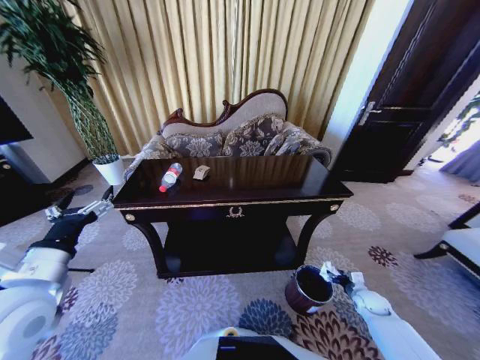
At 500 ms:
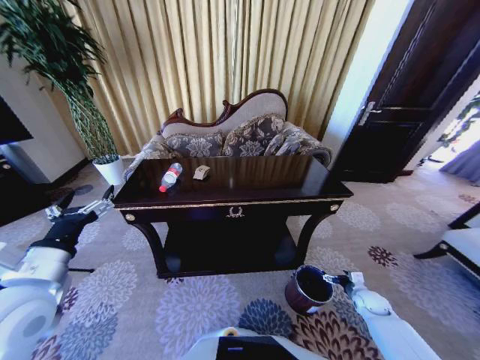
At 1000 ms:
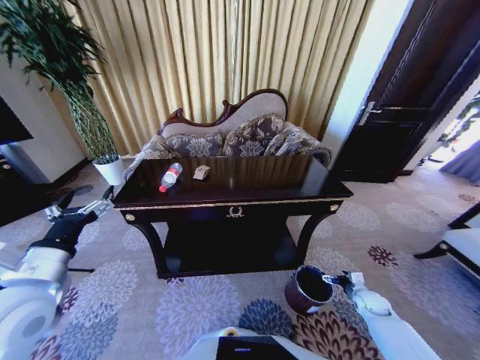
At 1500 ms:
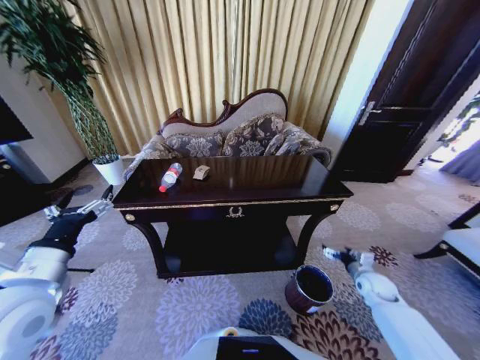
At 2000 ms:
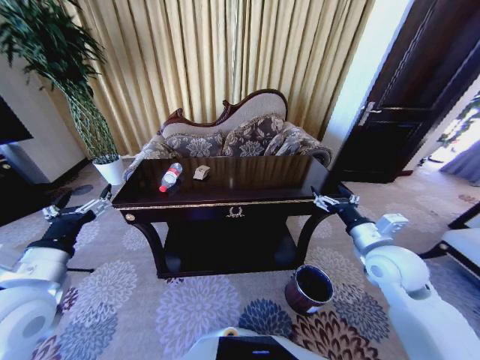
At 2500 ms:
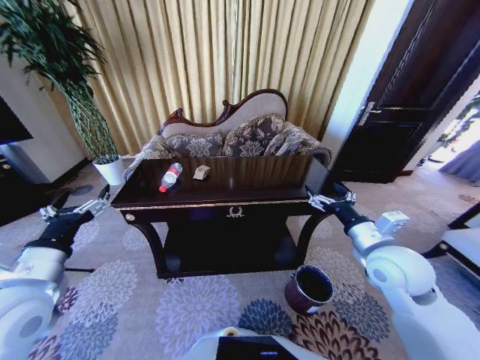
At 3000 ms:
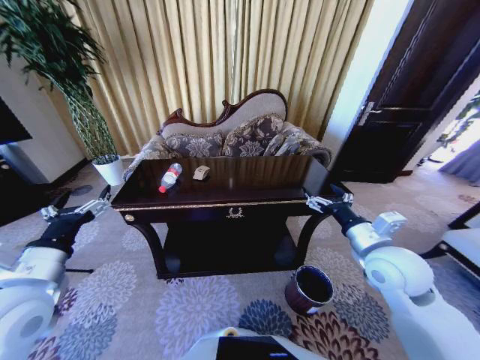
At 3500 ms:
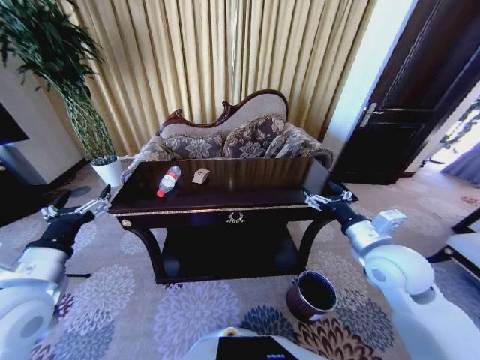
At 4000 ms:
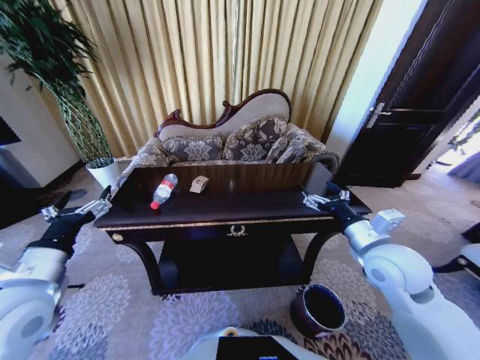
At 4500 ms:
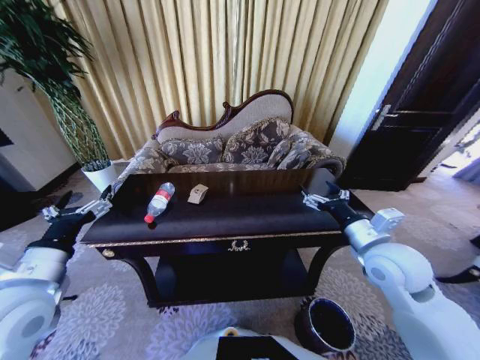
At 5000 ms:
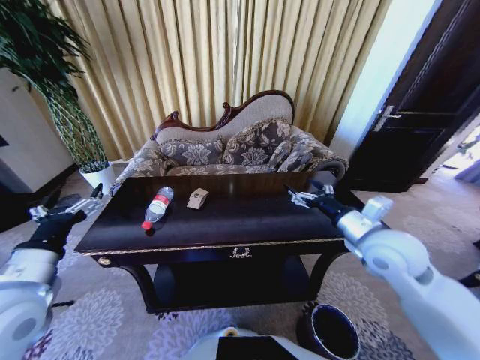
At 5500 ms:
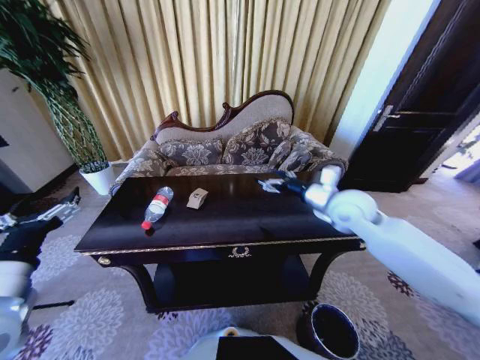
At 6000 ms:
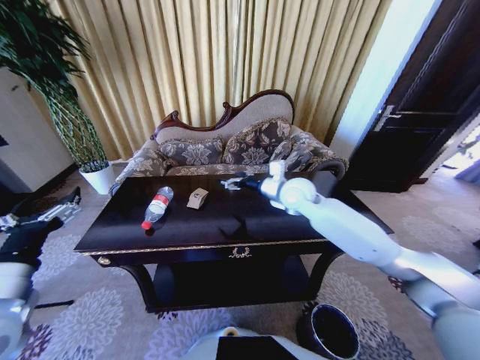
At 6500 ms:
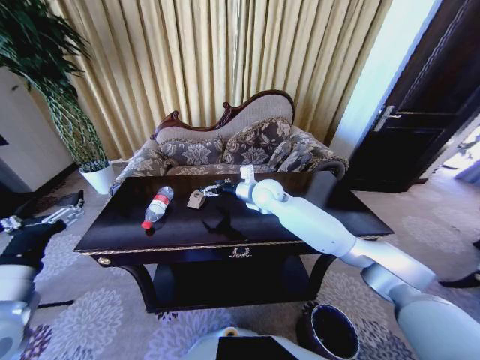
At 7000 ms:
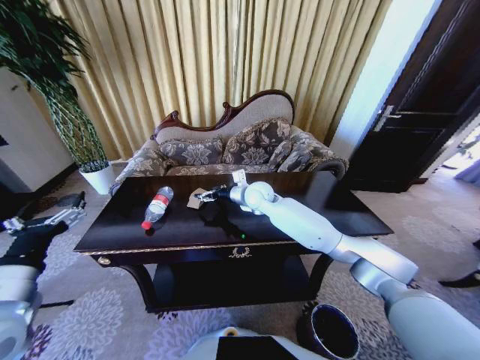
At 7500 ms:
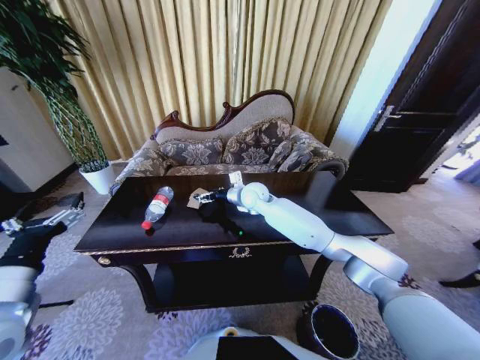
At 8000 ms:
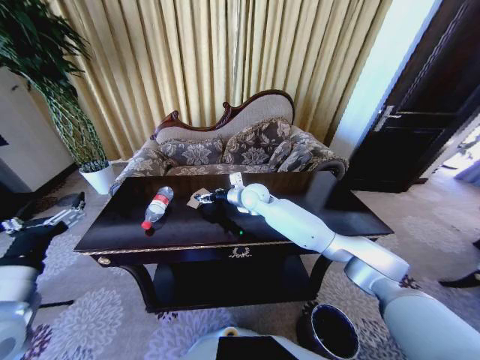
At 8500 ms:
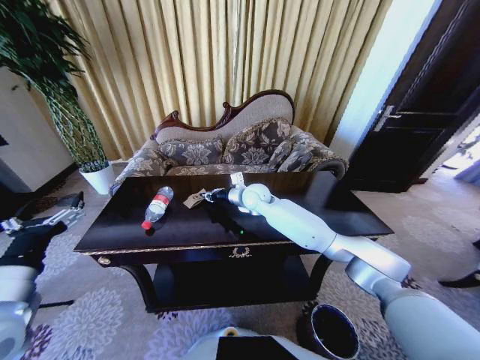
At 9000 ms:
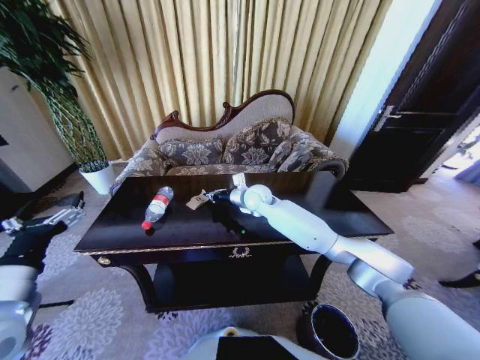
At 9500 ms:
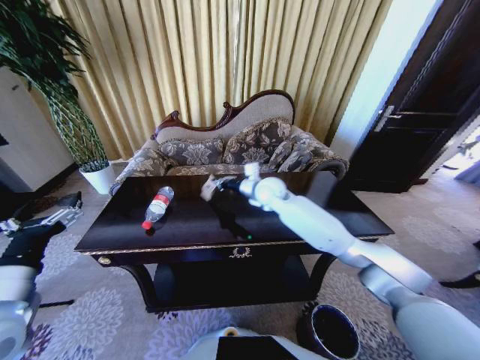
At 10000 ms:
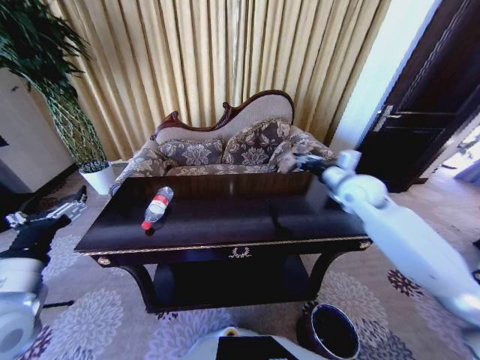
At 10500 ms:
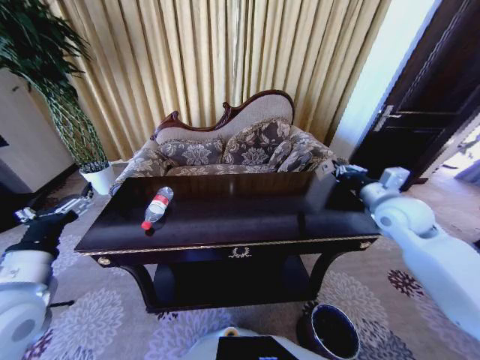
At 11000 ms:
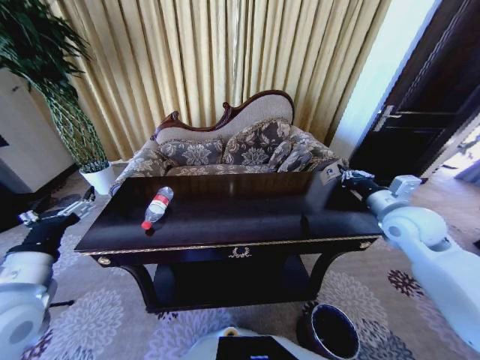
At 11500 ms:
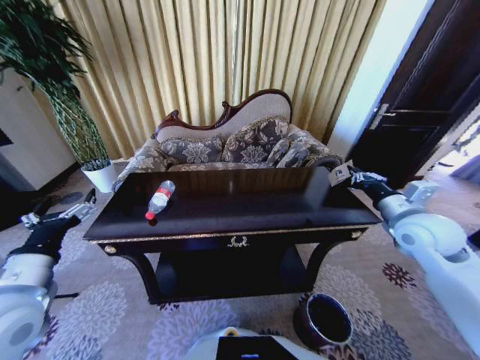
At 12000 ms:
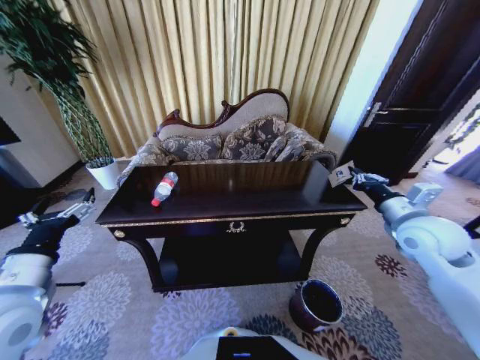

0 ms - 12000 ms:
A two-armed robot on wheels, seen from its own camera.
Task of the whole recording: Move to the front of the table and place the trash on the table into the trash bin.
0 ms - 2000 ms: The right gripper goes roughly 30 cm upward and to the left, and opens up.
2000 ms - 4000 ms: The right gripper ends up roughly 5 cm from where it was.
4000 ms - 6000 ms: The right gripper is displaced forward and to the left by about 25 cm.
6000 ms - 8000 ms: The right gripper shifts some 15 cm to the left, downward and forward.
8000 ms - 10000 ms: The right gripper heads to the right, covering roughly 25 cm, and closes its fingers.
10000 ms - 12000 ms: The right gripper shifts approximately 15 cm backward and to the right.

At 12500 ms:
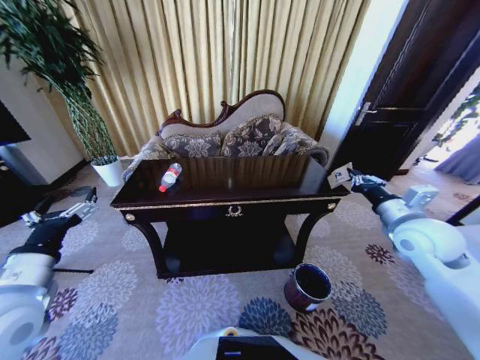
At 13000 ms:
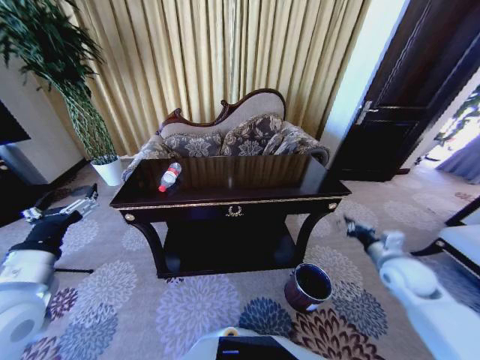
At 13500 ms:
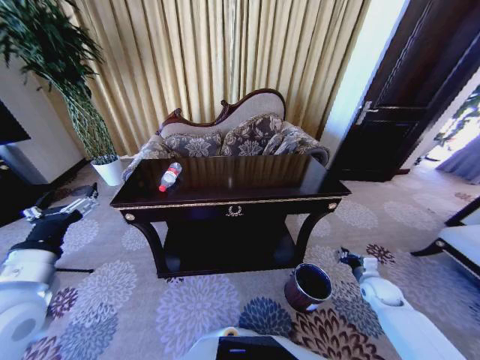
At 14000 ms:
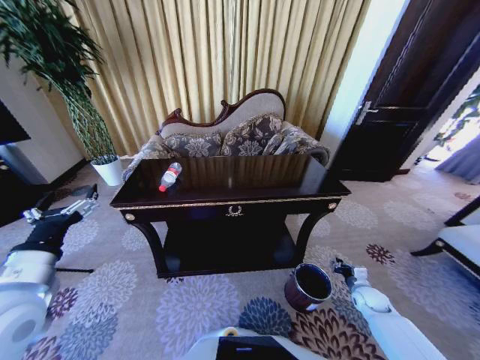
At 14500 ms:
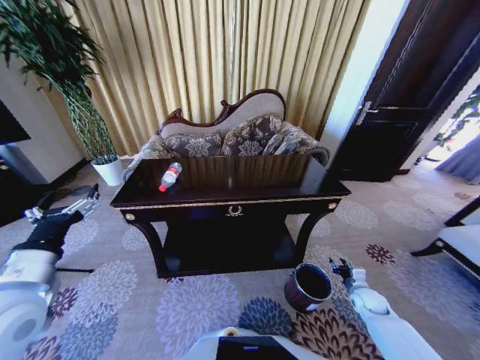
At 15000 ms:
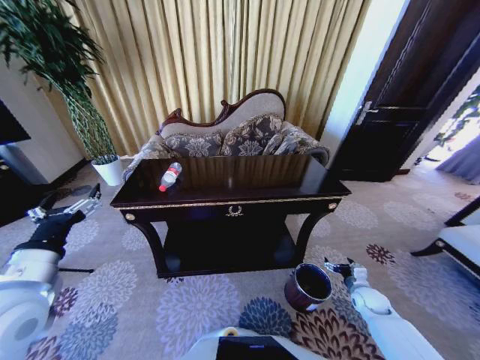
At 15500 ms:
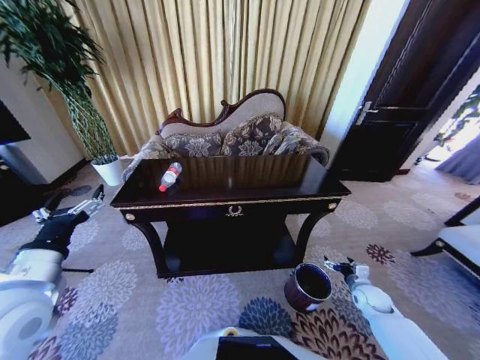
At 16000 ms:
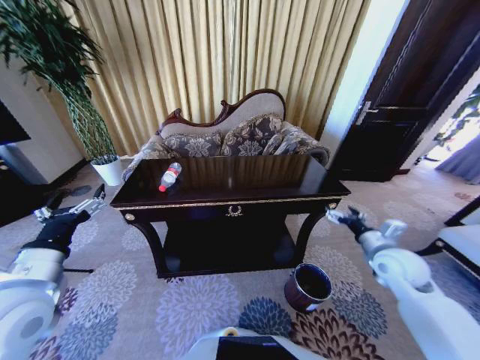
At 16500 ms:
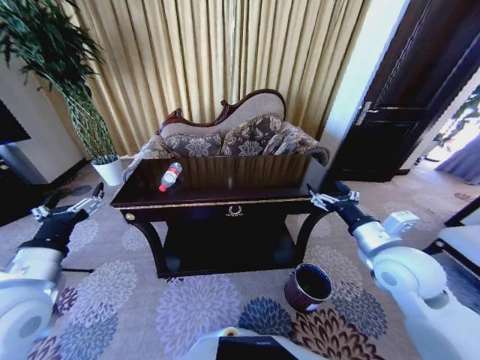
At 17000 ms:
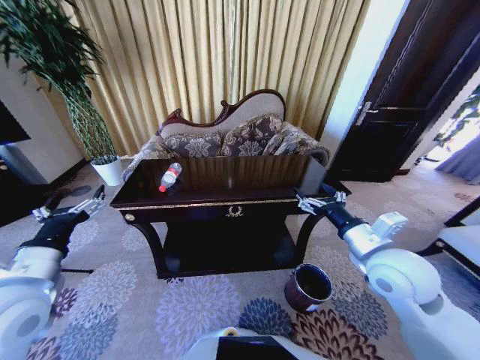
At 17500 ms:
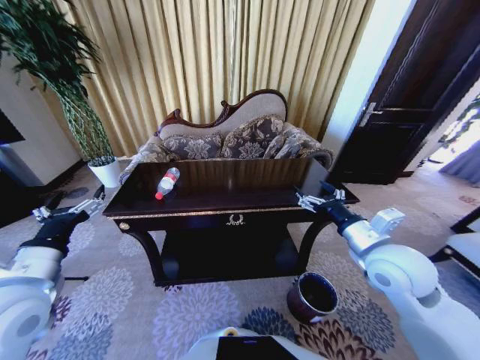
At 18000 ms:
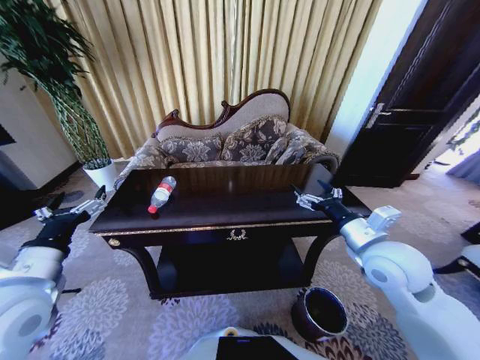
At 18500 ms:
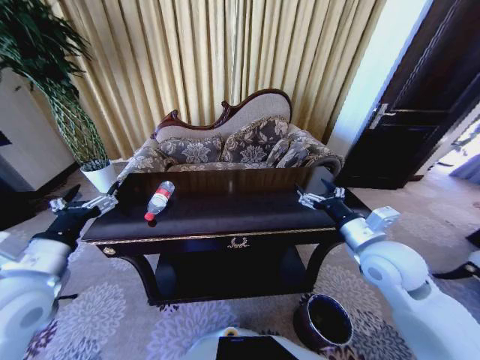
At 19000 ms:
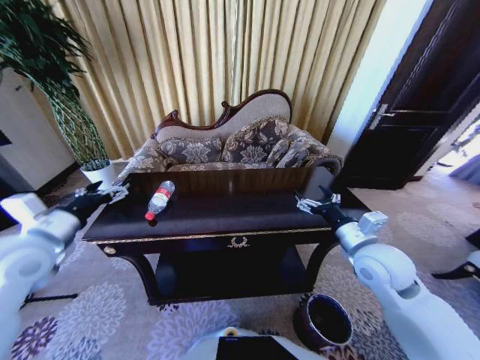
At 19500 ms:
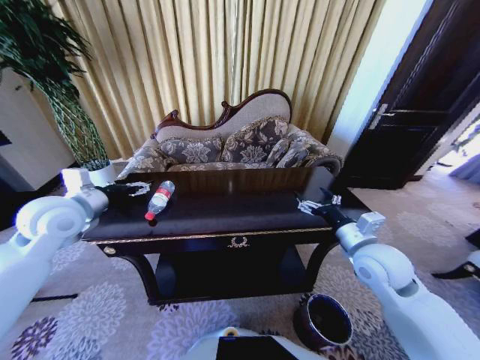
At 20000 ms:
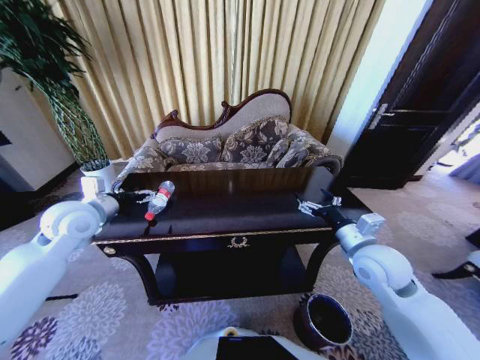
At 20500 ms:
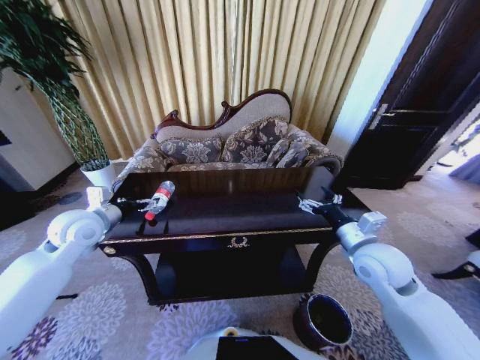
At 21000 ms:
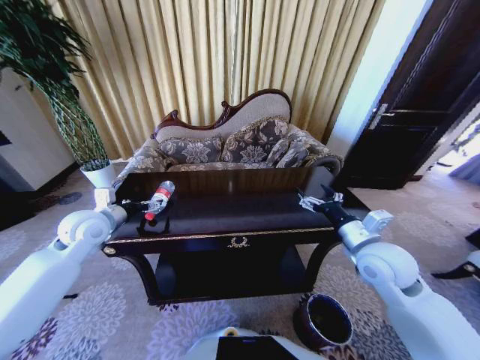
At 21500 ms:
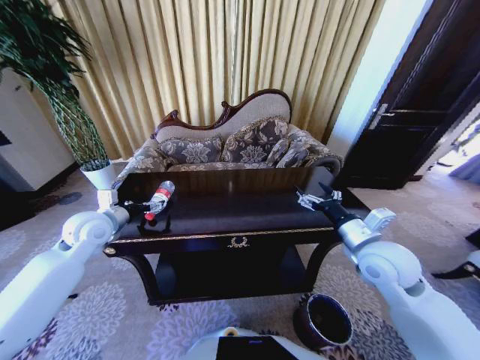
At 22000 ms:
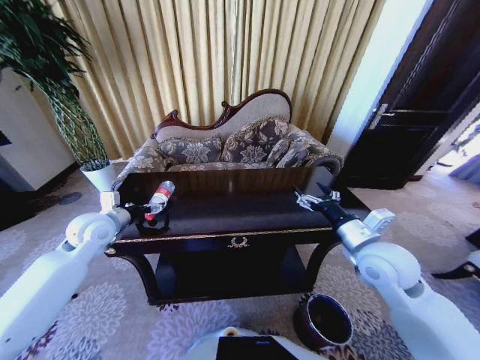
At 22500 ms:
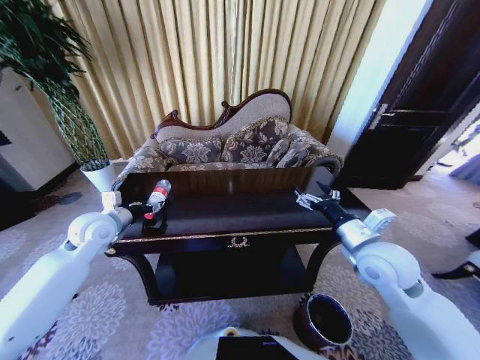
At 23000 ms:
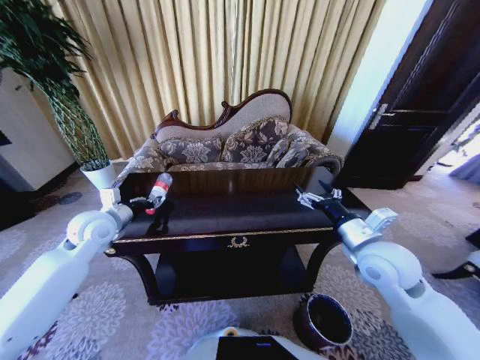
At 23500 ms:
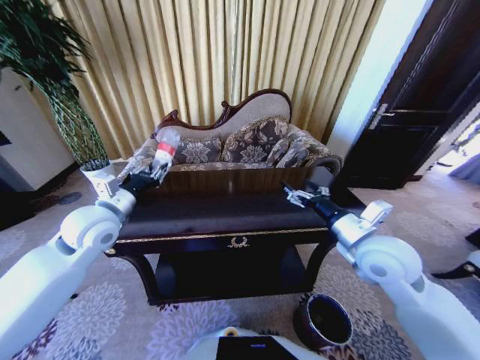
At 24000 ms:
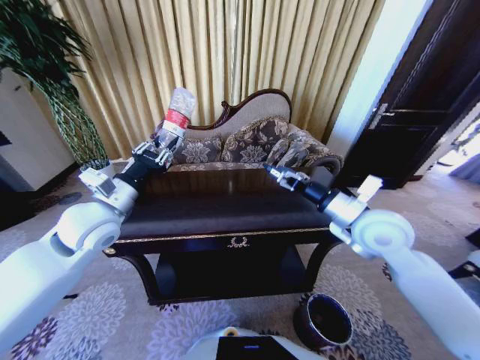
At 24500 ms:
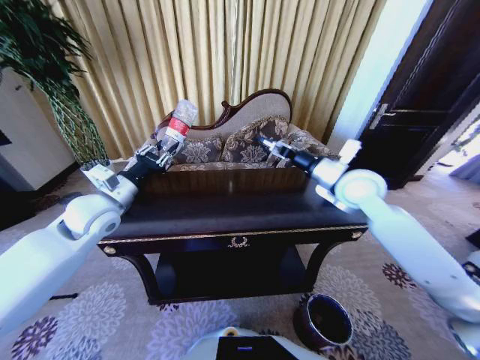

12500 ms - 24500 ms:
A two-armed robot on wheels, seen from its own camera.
Task of the whole recording: Move to the front of the table and place the trash on the table into the trash bin.
12500 ms - 14500 ms: The right gripper is displaced downward by roughly 35 cm, and opens.
14500 ms - 16500 ms: The right gripper travels upward and to the left by roughly 35 cm, and opens its fingers.
18500 ms - 20500 ms: The left gripper shifts some 15 cm forward.
20500 ms - 22500 ms: The left gripper closes its fingers.
22500 ms - 24500 ms: The left gripper shifts roughly 5 cm upward, and closes. Meanwhile the right gripper is displaced forward and upward by some 15 cm.

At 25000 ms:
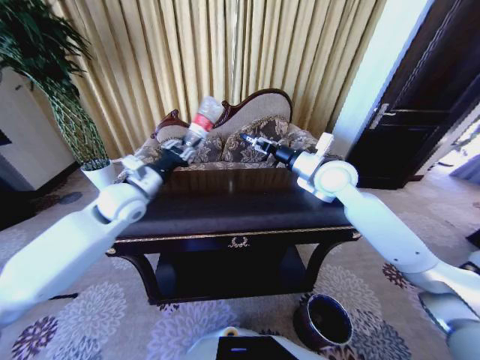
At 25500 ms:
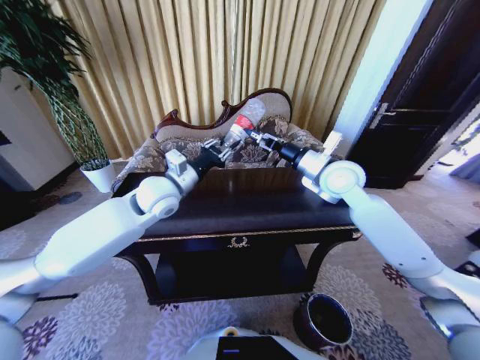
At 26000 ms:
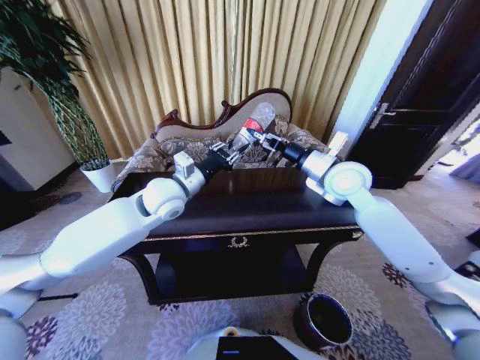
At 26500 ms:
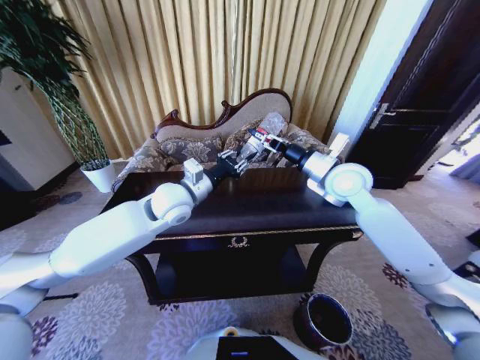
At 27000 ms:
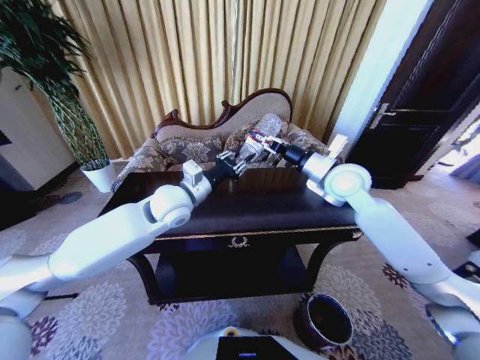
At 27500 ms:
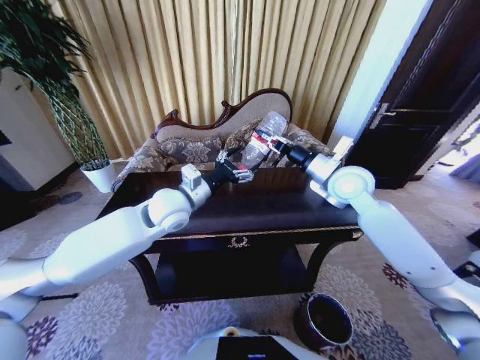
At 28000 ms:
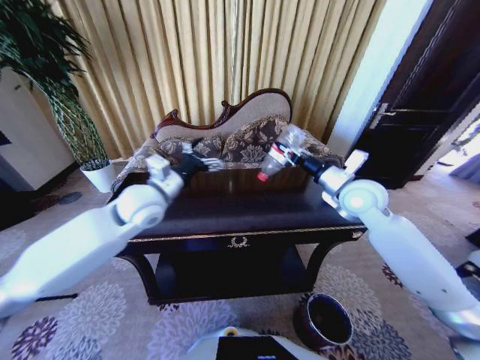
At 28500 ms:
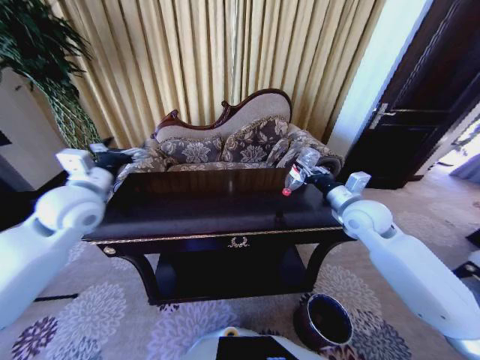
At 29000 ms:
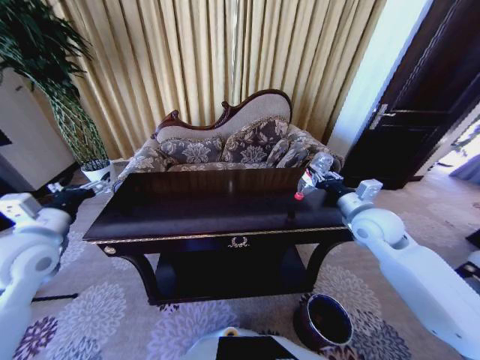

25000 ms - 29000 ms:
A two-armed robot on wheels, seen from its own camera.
Task of the whole recording: Move to the front of the table and place the trash on the table into the trash bin.
25000 ms - 27000 ms: The left gripper travels to the right by roughly 10 cm; the right gripper closes up.
27000 ms - 29000 ms: The right gripper heads downward, backward and to the right, covering approximately 15 cm. The left gripper shifts about 25 cm to the left and backward, and opens its fingers.
